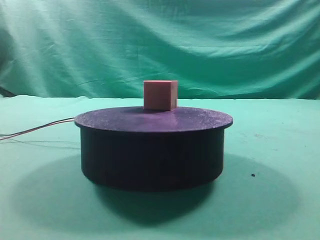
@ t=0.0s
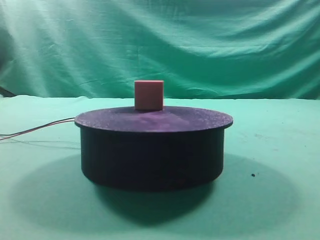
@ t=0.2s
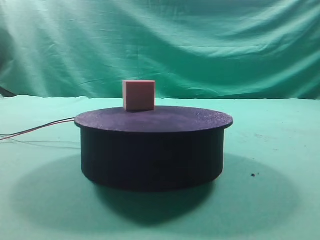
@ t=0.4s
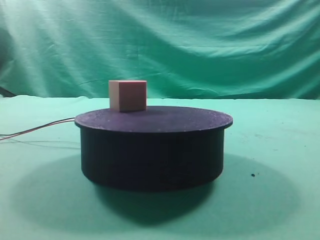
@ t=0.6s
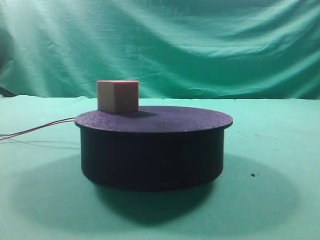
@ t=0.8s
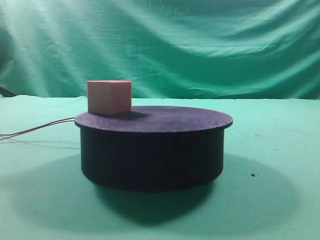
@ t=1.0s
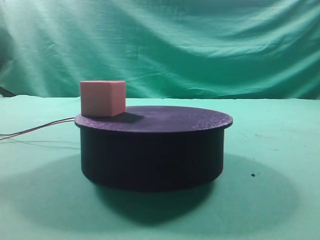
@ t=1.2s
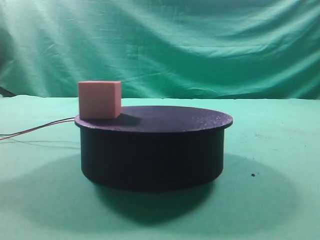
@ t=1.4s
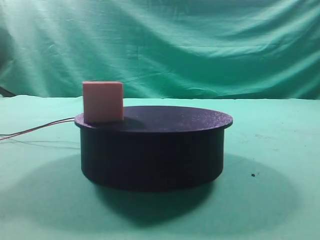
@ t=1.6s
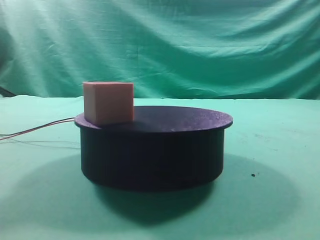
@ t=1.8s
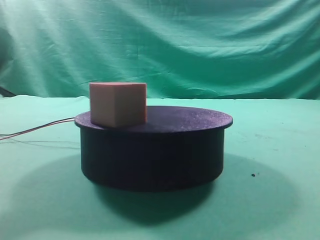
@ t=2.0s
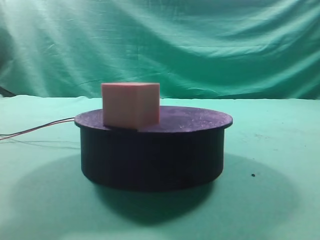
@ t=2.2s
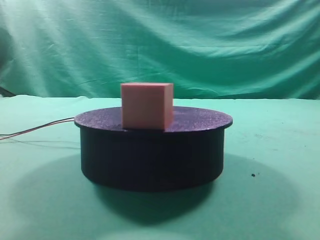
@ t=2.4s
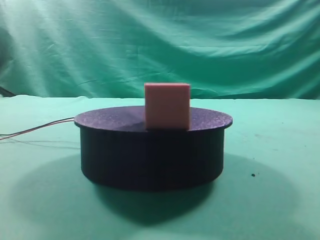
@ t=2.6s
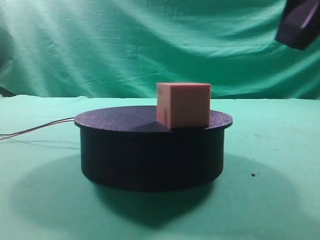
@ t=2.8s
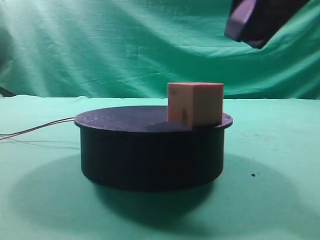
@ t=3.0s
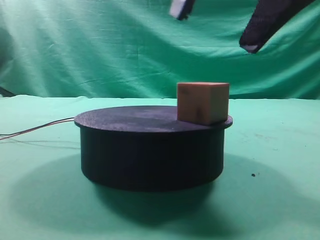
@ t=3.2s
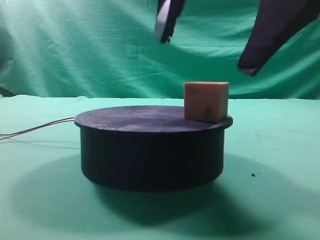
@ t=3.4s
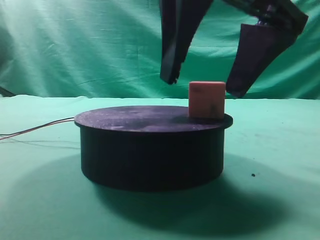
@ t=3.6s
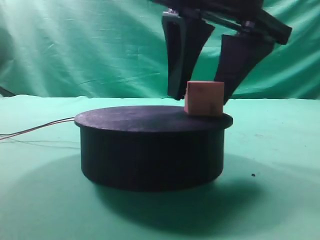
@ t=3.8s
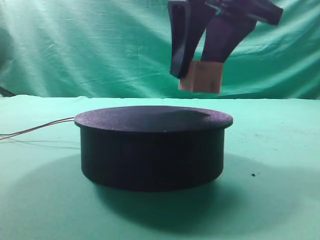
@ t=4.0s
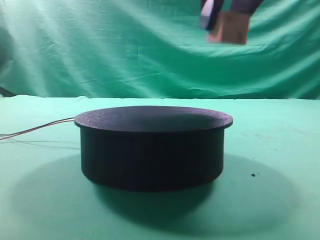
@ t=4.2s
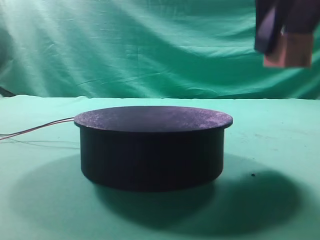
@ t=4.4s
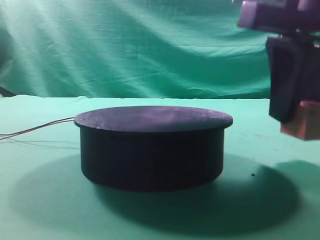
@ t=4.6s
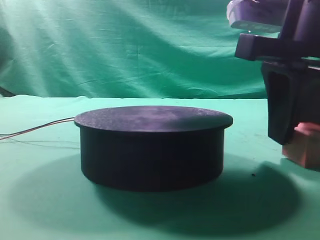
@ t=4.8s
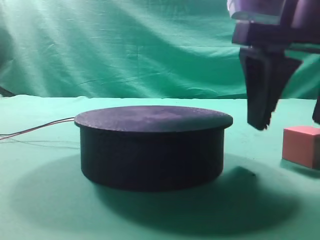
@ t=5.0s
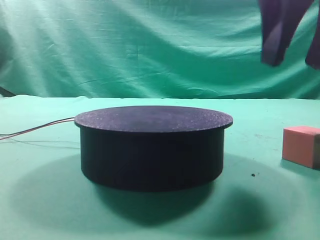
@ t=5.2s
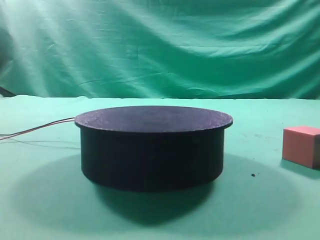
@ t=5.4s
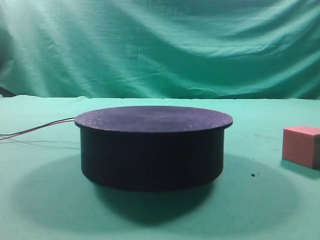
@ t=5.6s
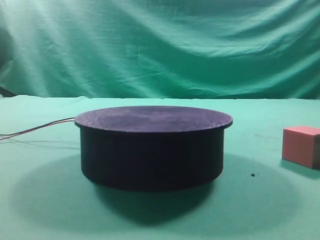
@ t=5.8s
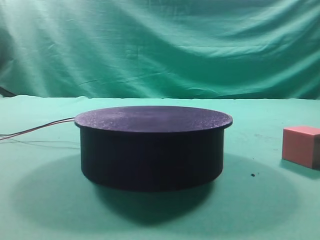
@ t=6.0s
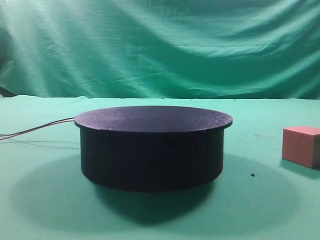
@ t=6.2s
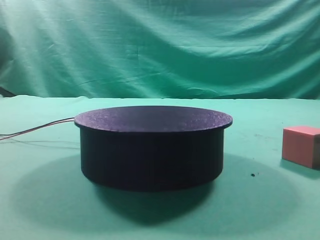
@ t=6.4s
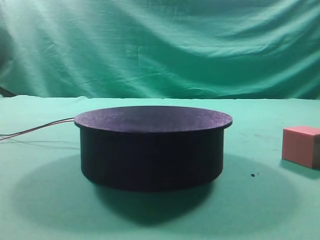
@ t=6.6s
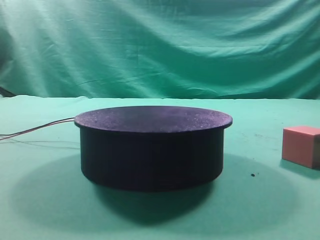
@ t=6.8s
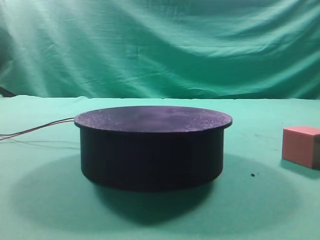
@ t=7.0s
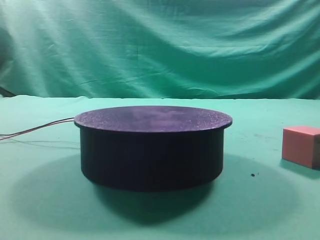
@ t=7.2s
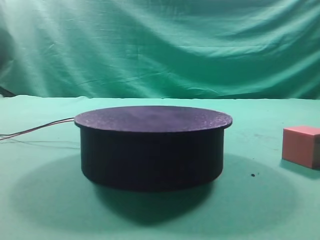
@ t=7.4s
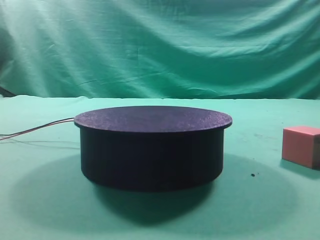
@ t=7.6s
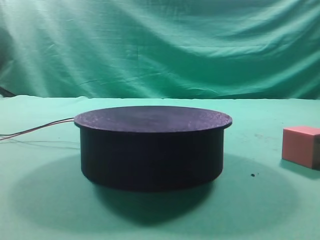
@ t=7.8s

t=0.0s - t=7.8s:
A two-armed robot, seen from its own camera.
Task of the whole recording: grasp the rotating cube-shaped block on the turntable and place it on the table.
Step, t=0.0s - t=4.0s: Grasp the rotating cube-shaped block on the turntable.
Step, t=4.2s - t=5.0s: Place the cube on the desk.

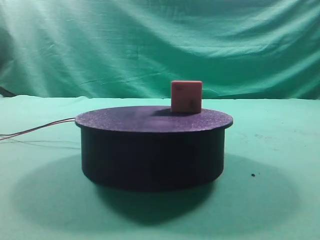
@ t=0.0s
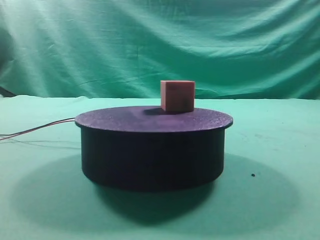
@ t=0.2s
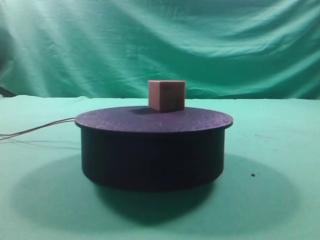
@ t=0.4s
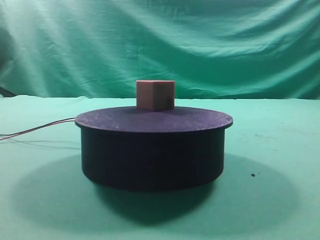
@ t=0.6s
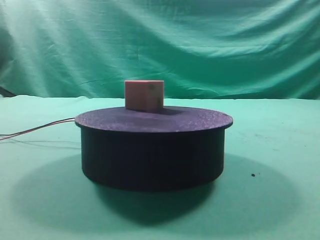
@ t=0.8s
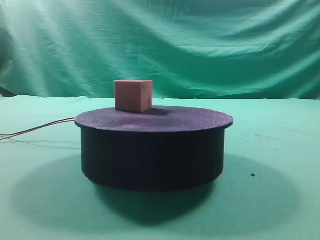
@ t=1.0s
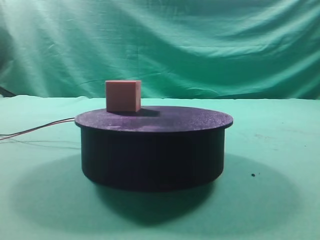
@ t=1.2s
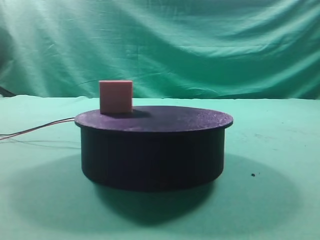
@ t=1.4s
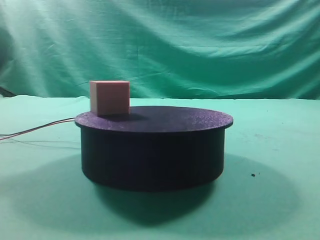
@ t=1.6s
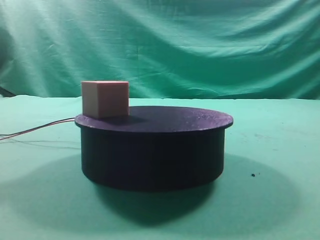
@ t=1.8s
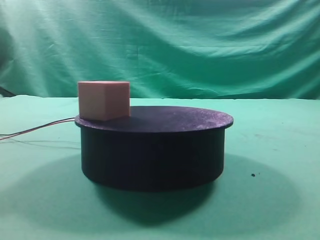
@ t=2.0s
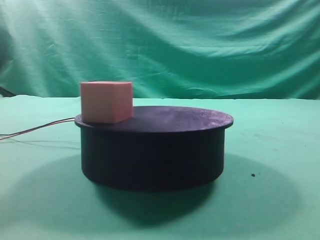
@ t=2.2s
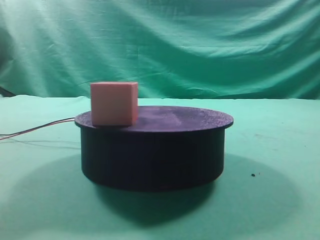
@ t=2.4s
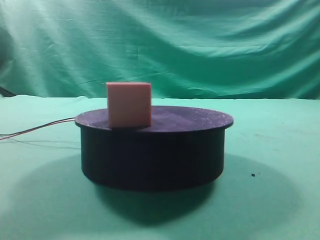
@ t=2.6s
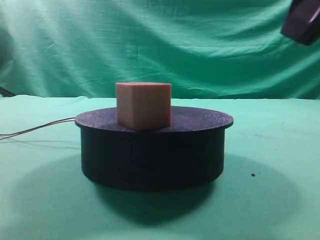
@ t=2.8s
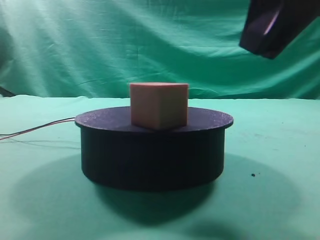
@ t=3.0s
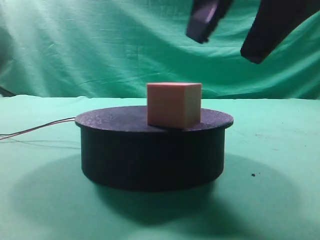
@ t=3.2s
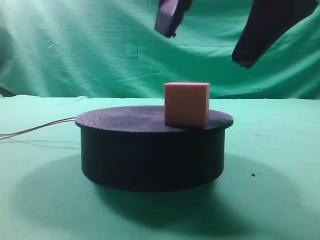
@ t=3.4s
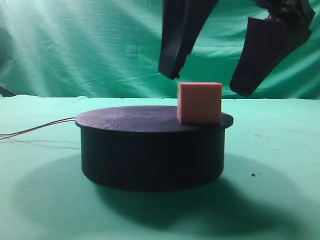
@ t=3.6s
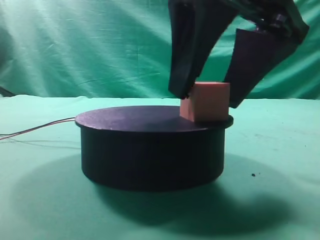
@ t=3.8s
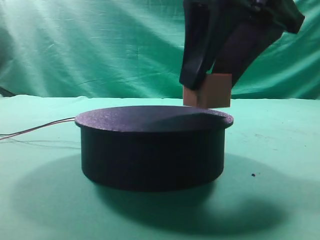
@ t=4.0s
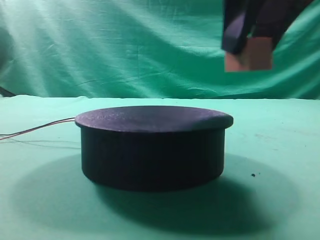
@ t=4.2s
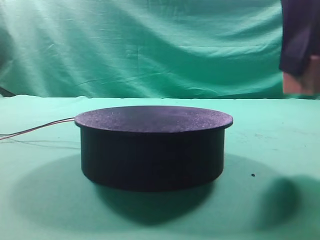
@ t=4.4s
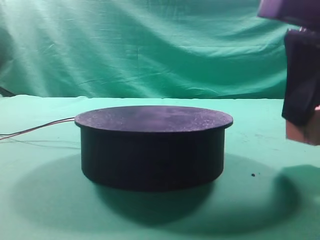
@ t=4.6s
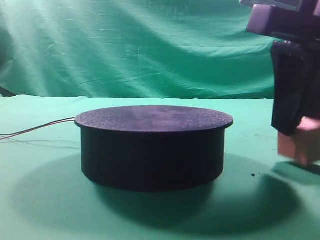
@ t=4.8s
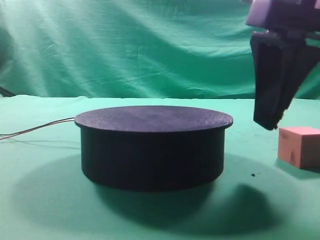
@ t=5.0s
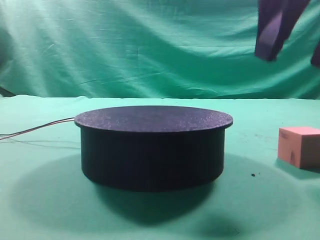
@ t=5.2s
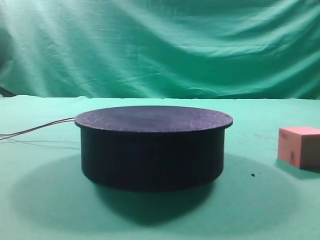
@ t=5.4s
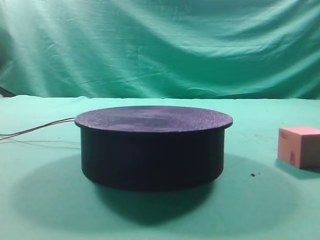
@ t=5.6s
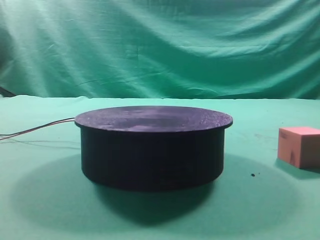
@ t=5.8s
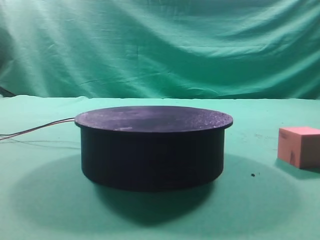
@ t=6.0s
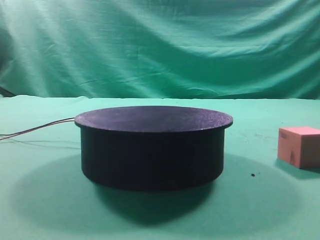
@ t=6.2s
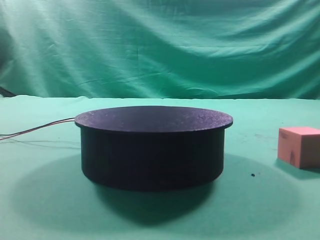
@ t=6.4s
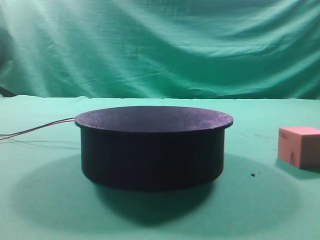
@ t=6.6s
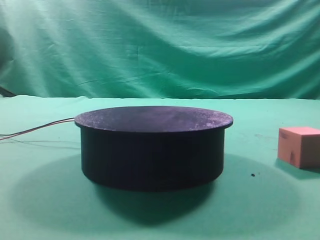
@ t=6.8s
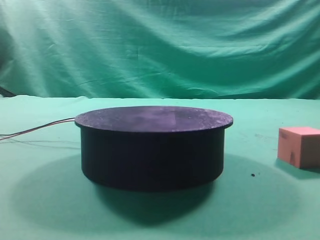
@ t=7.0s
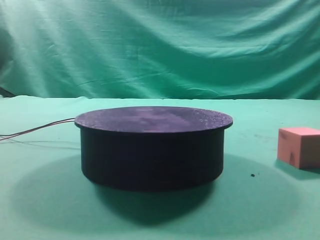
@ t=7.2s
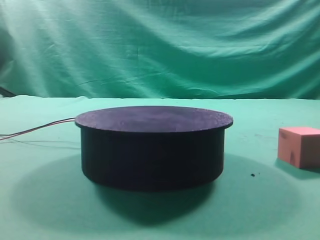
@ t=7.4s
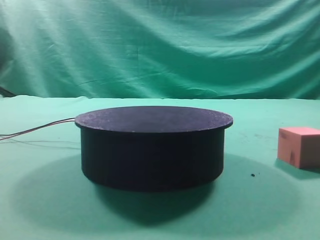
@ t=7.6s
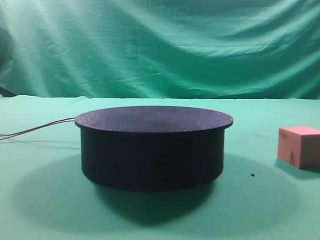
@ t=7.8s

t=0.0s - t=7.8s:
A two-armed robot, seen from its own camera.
Task of the whole recording: grasp the rotating cube-shaped block on the turntable and place it on the table.
Step, t=0.0s - t=4.0s: Grasp the rotating cube-shaped block on the turntable.
Step, t=4.2s - t=5.2s: Place the cube on the desk.
